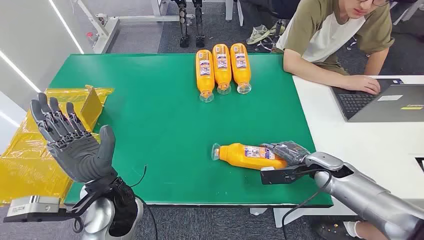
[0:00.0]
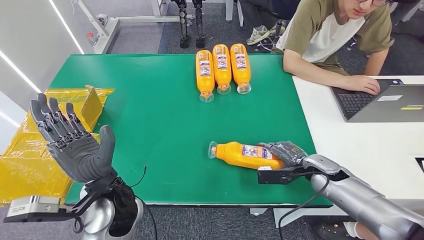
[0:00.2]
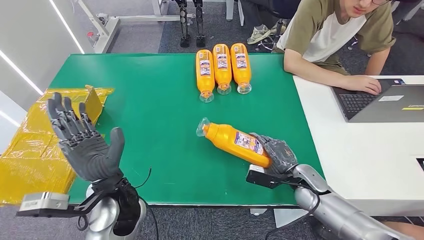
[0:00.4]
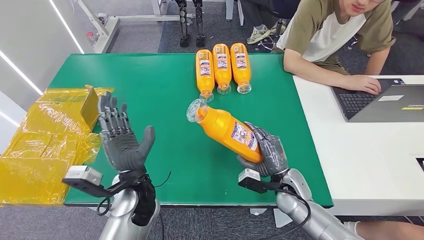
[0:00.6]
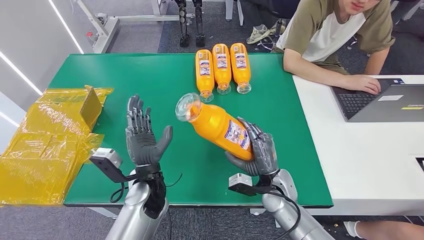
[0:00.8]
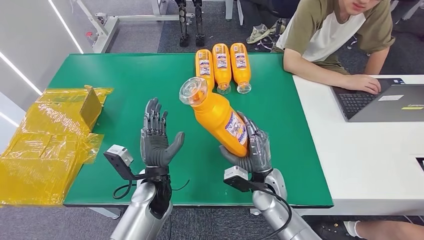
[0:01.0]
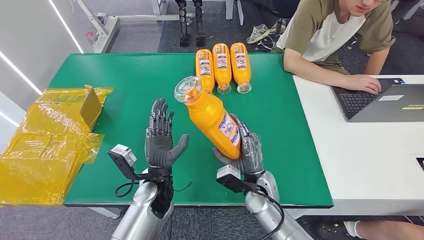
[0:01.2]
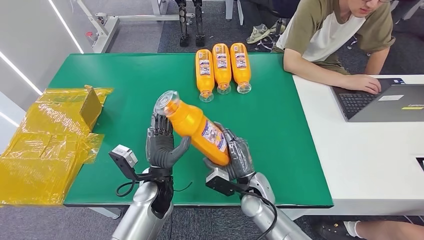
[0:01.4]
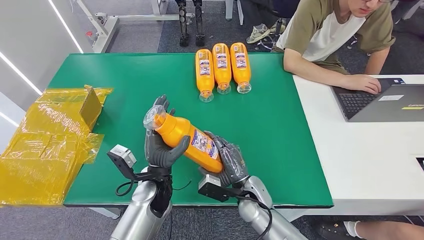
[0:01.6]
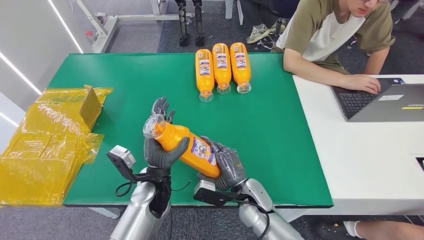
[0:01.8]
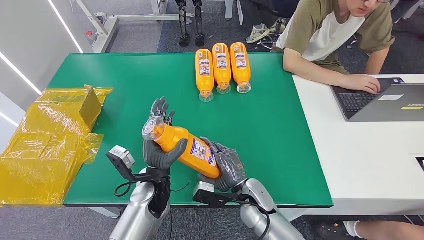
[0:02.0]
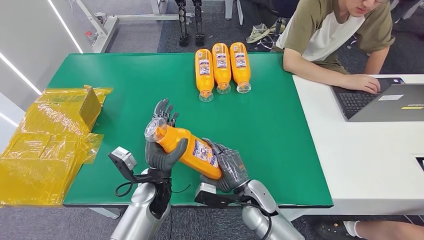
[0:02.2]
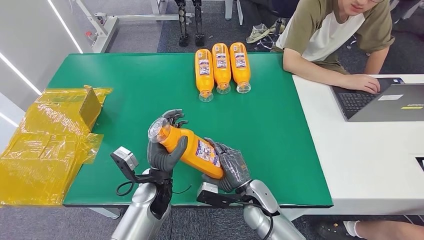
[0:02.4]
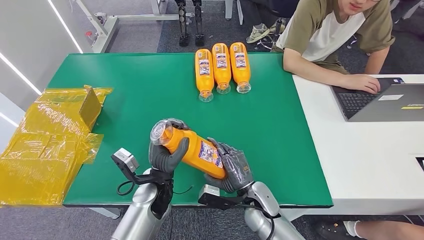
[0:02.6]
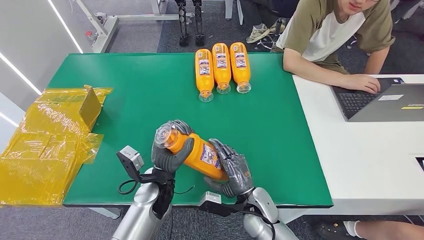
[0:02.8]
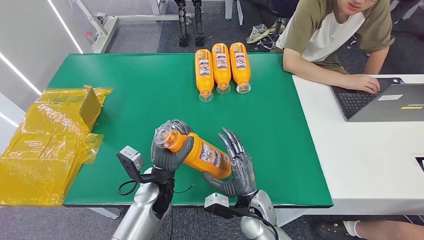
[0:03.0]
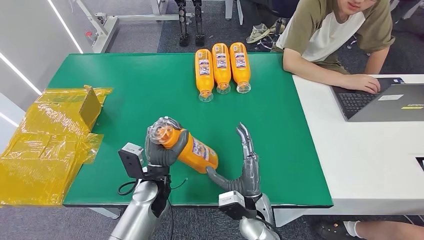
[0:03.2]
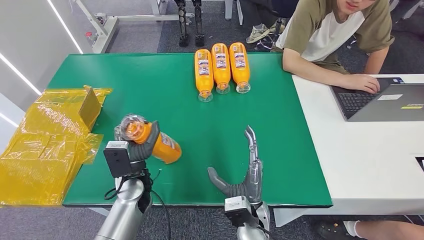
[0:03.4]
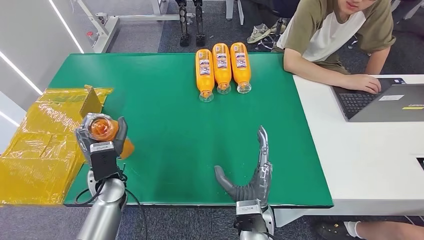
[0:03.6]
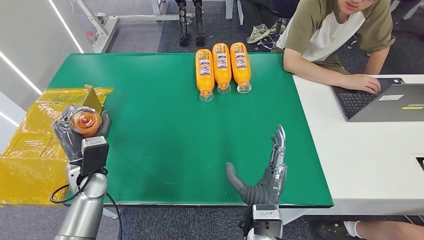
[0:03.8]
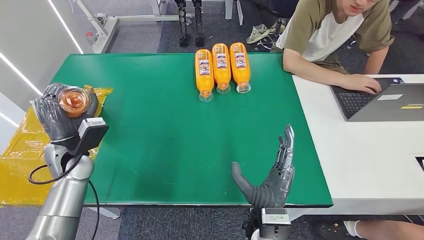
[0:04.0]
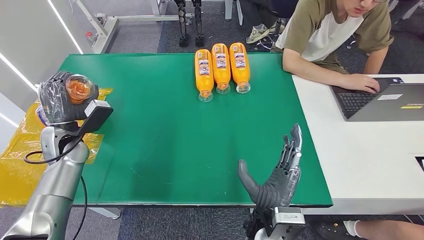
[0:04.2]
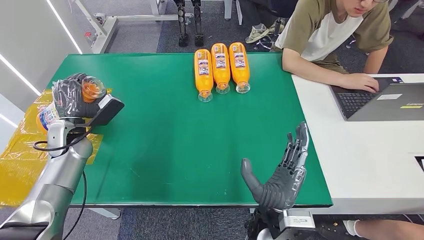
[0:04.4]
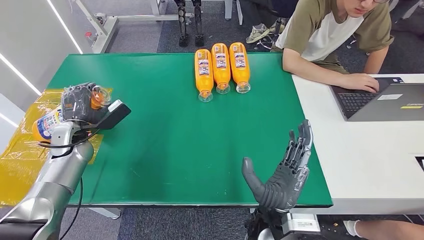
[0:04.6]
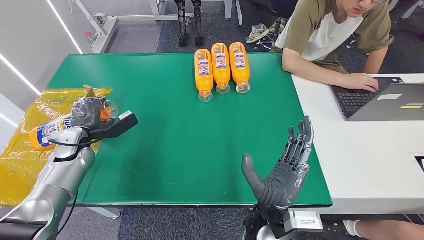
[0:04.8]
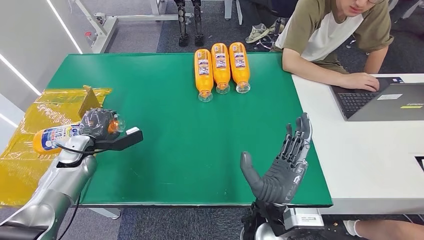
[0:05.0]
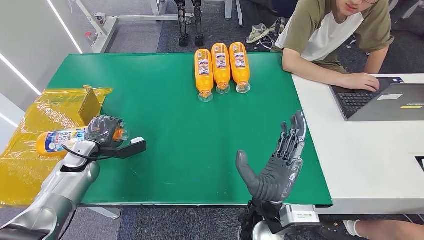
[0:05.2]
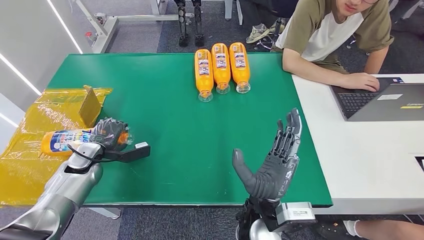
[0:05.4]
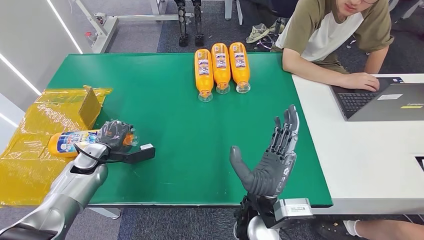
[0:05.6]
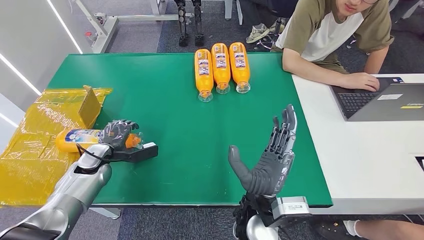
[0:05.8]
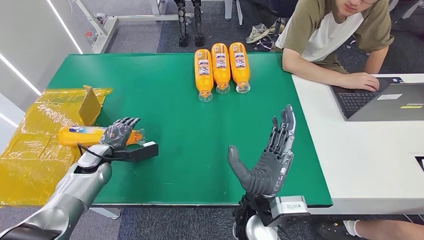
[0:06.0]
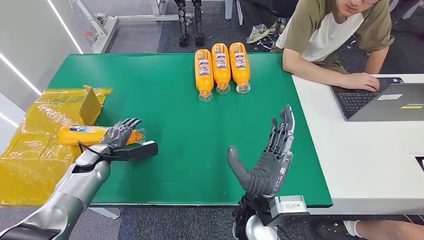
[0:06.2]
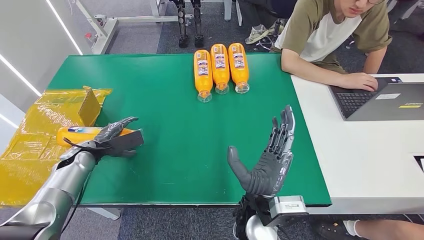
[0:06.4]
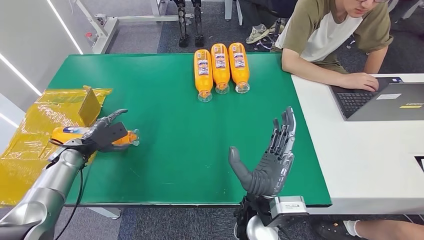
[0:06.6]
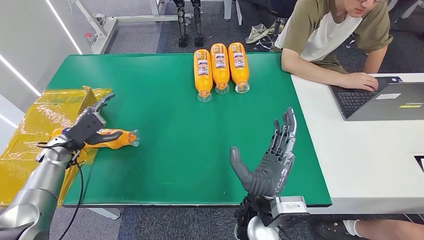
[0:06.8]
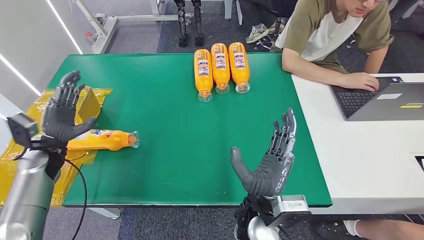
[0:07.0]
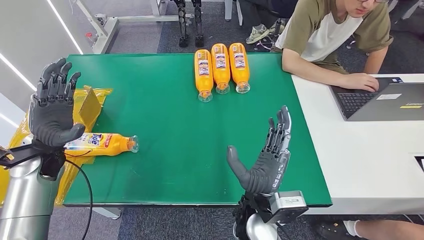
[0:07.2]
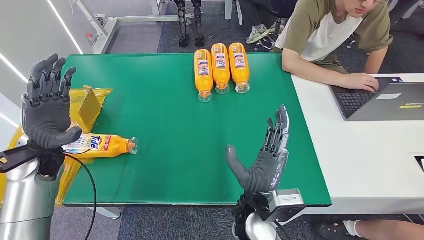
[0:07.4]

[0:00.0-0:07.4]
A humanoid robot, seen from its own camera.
Step, 0:00.0 to 0:01.8: Pick up the bottle from the table.
Step, 0:02.0 to 0:07.2: Turn the bottle to the front side.
0:03.0 to 0:04.4: The right hand shifts approximately 10 cm upward and backward; the left hand moves to the left and forward, approximately 30 cm.
0:04.4 to 0:06.0: The left hand moves downward, some 10 cm.
0:06.0 to 0:07.4: The left hand travels upward by roughly 10 cm.
